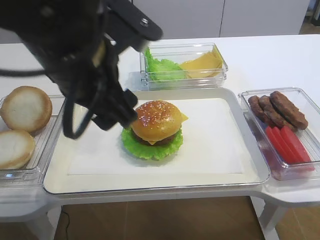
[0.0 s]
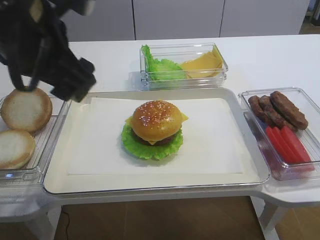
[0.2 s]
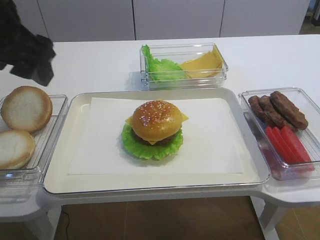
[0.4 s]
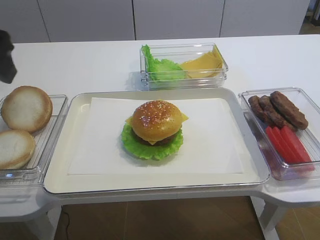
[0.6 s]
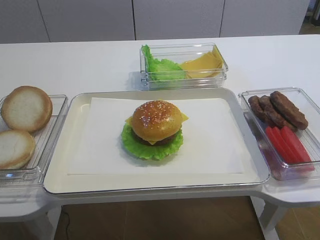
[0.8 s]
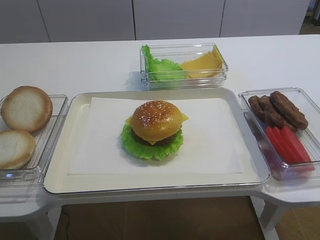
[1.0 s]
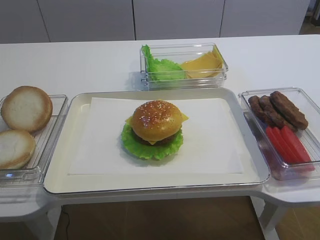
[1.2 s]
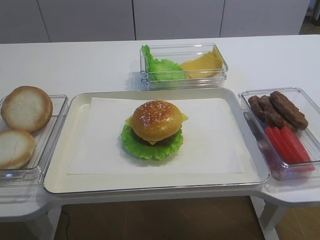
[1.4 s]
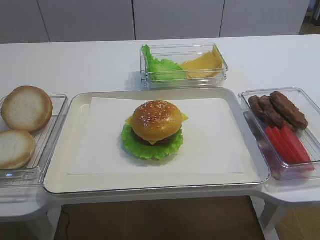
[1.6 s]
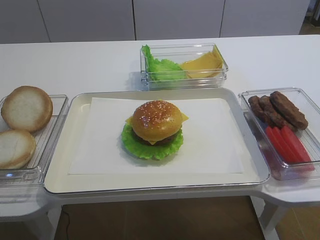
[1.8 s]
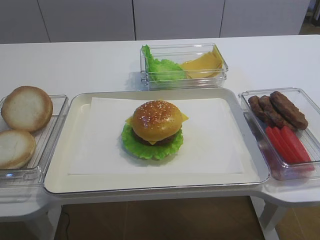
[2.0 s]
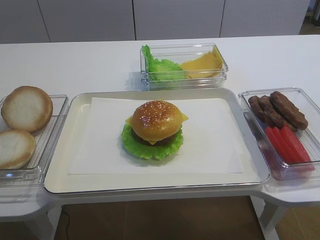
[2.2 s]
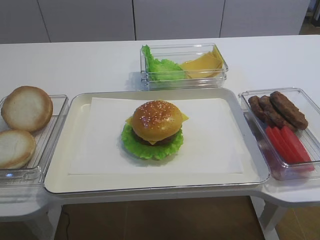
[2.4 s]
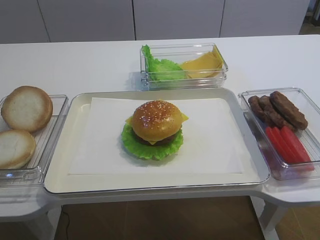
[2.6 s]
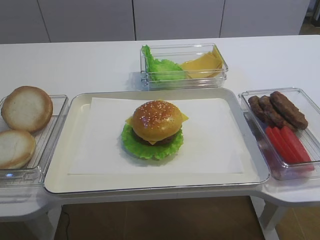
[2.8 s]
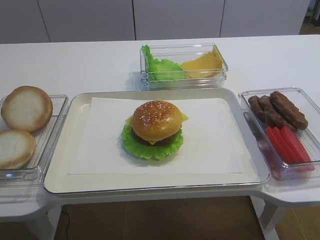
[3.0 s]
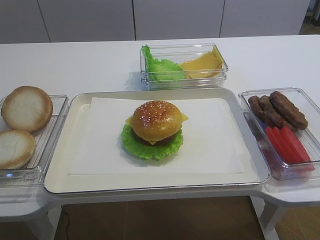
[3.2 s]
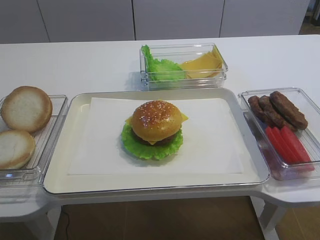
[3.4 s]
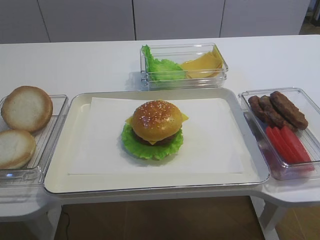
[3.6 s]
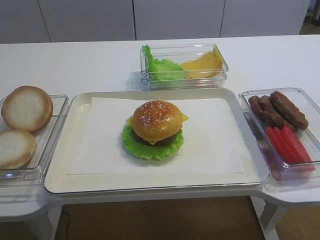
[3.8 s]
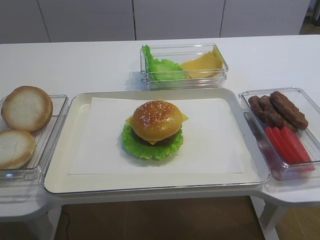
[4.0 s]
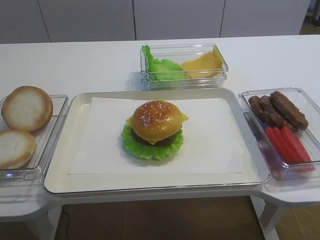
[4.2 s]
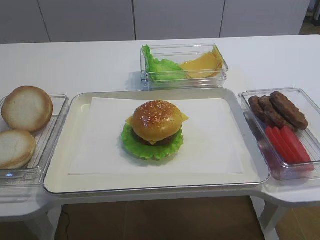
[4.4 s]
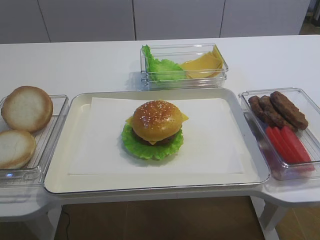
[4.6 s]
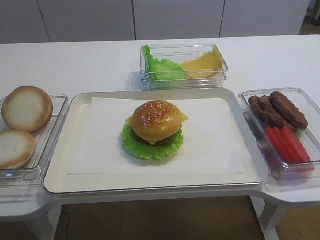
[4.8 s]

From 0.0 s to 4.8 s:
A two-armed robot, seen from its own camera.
From 0.0 s to 1.6 s: The left gripper moves to the left and backward, approximately 30 cm.

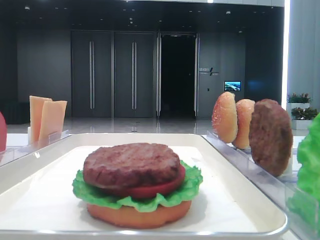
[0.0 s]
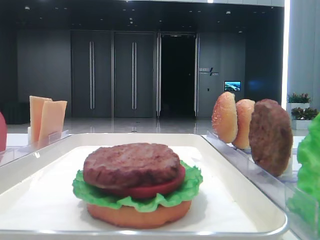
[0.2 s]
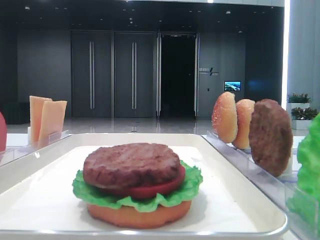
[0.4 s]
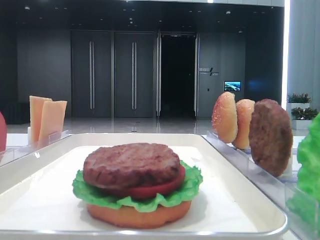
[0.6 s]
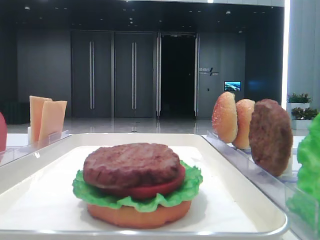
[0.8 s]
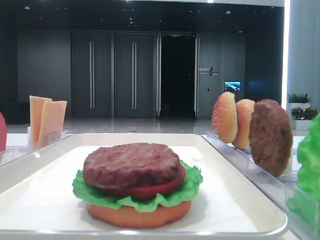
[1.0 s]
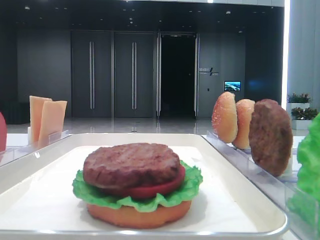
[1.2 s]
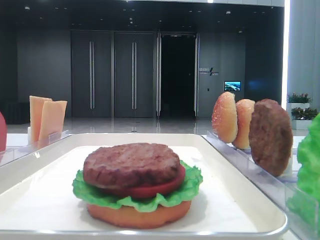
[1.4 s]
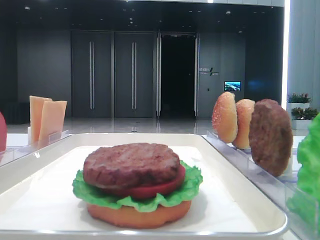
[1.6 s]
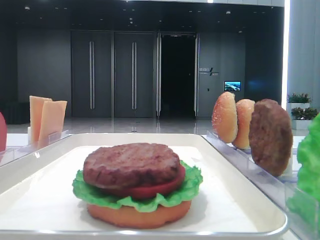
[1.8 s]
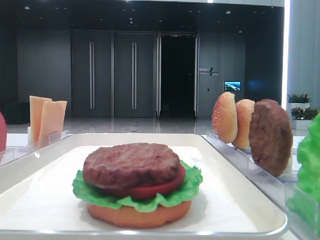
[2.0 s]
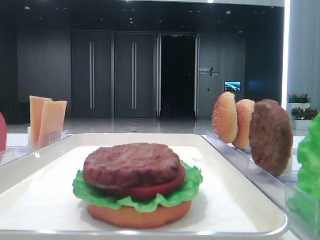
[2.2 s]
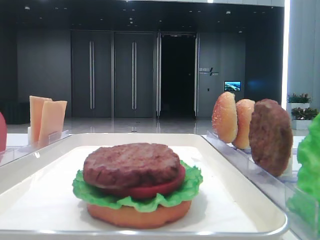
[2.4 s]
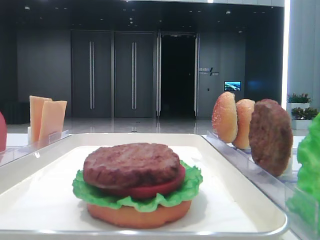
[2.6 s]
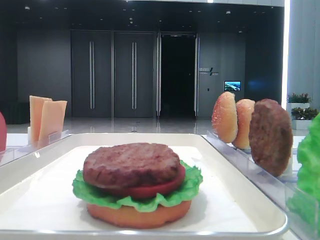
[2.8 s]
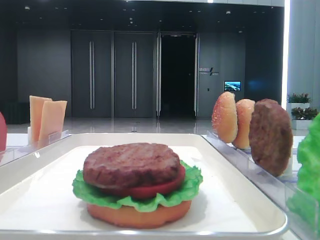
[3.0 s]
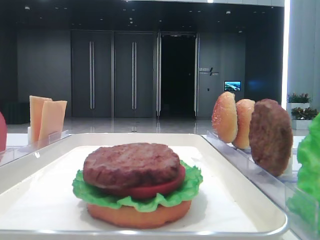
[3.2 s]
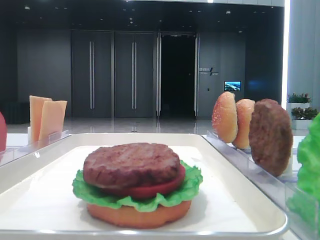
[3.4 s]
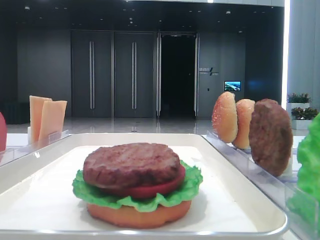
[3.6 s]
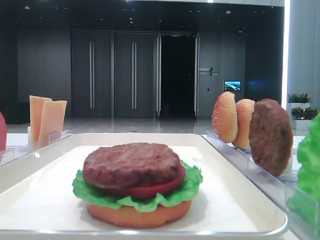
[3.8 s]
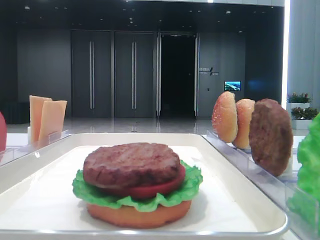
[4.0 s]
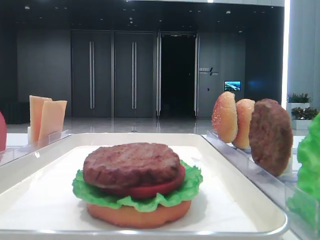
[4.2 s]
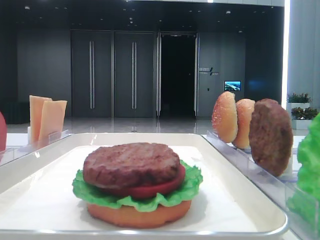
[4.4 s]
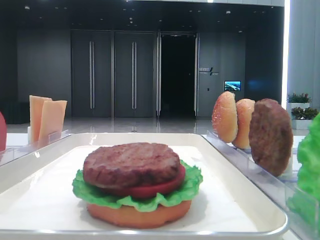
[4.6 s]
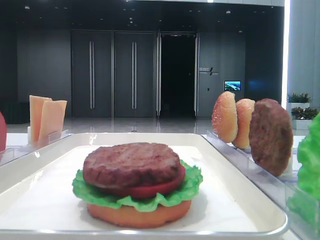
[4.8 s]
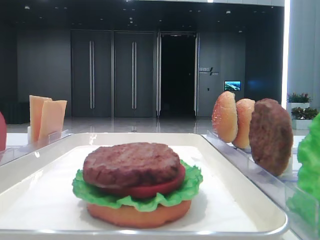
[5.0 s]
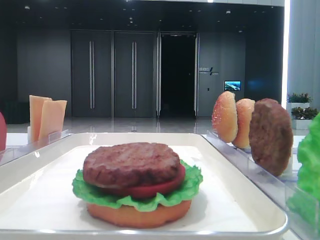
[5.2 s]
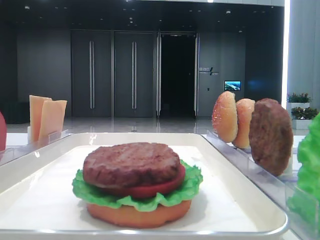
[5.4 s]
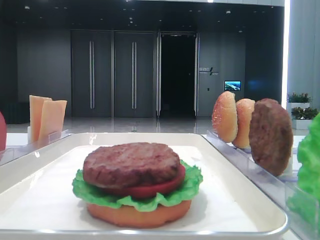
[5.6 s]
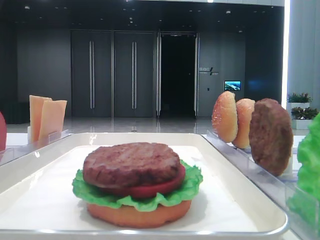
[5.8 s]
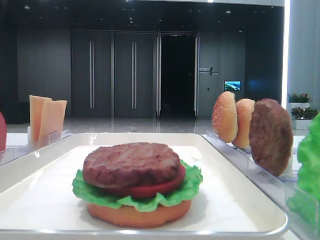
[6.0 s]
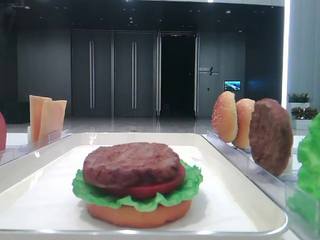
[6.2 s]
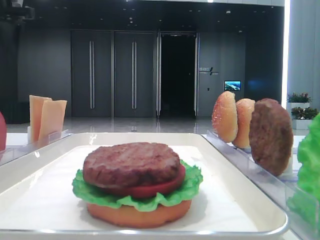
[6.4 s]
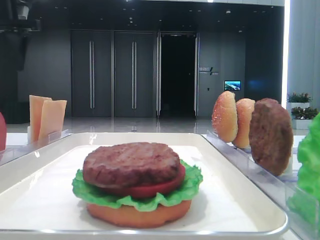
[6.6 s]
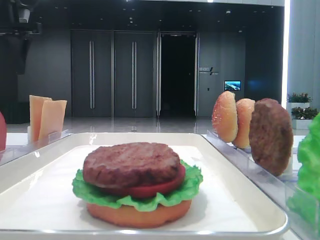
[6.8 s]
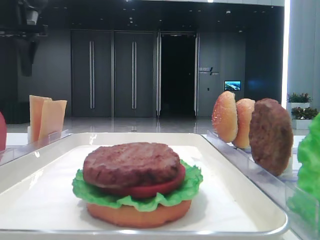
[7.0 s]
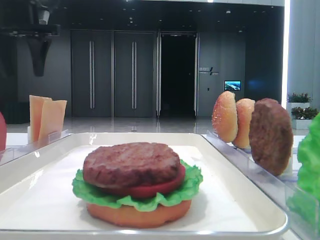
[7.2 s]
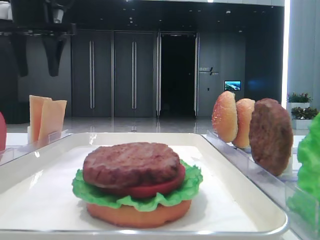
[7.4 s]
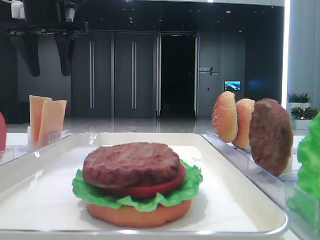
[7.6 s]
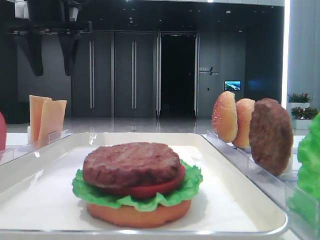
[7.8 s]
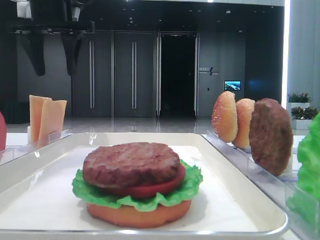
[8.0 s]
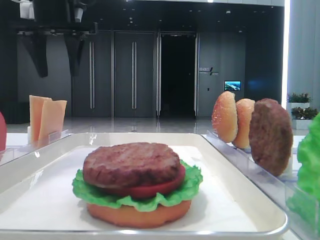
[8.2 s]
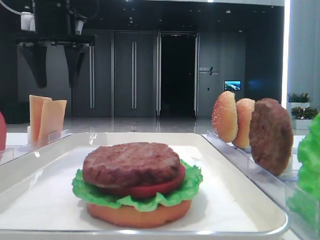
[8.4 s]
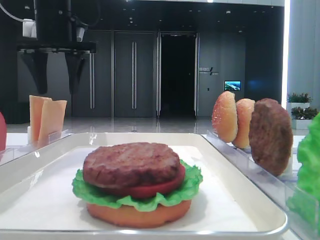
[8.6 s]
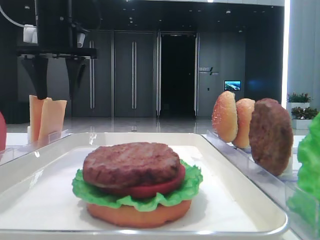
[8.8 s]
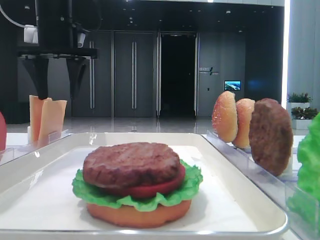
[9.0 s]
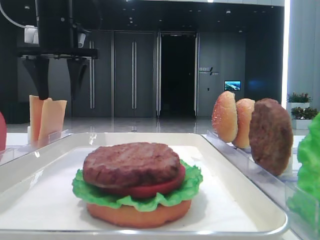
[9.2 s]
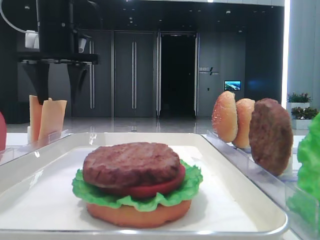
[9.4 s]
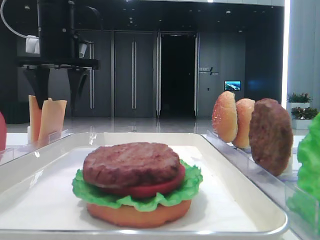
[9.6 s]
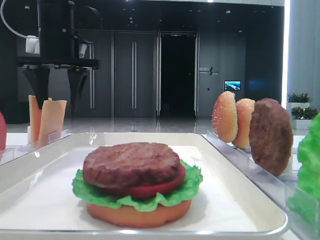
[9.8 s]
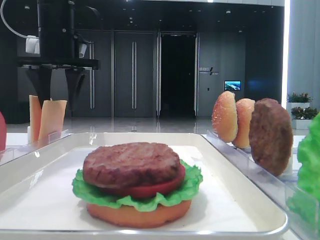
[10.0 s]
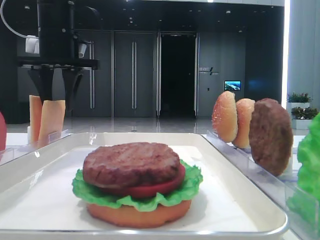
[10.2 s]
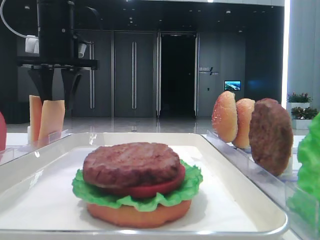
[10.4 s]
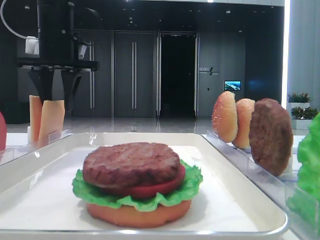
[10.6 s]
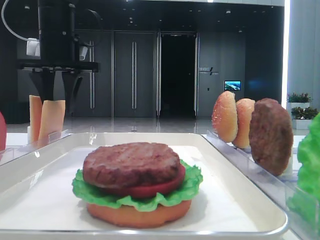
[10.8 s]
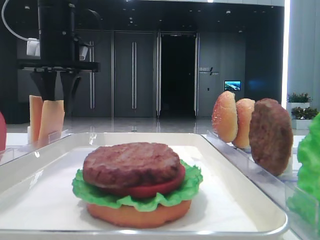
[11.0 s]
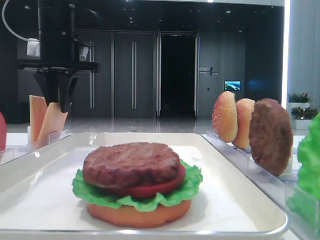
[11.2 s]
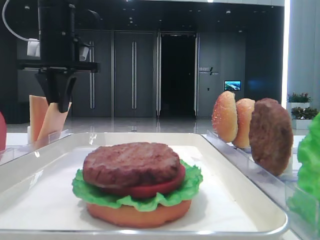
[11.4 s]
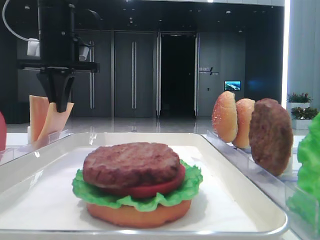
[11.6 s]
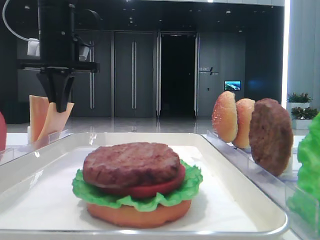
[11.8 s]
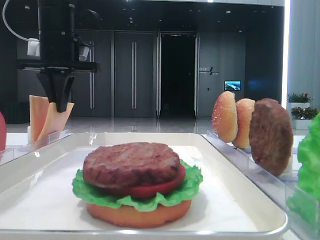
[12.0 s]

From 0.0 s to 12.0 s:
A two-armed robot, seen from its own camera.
From 6.0 s to 7.6 s: The left gripper moves to the right and forward, about 10 cm.
From 7.6 s to 9.0 s: The grippers move only a little.
From 9.0 s to 10.4 s: There are only small adjustments of the grippers.
From 10.4 s to 12.0 s: The left gripper closes.

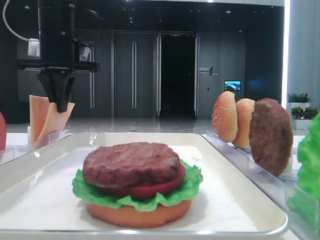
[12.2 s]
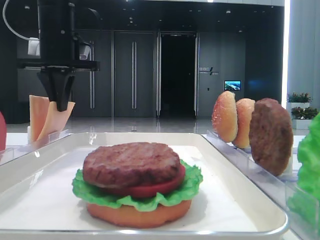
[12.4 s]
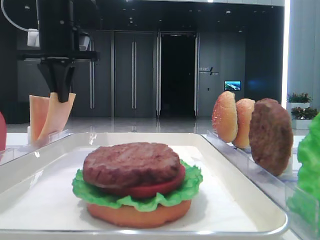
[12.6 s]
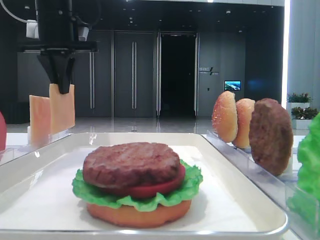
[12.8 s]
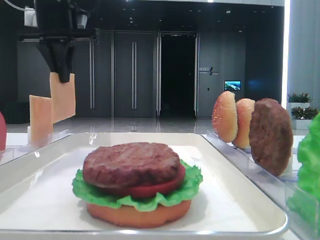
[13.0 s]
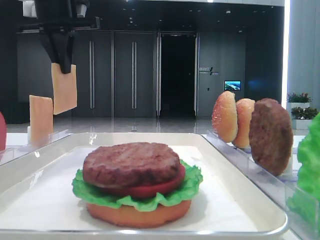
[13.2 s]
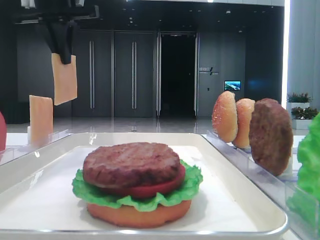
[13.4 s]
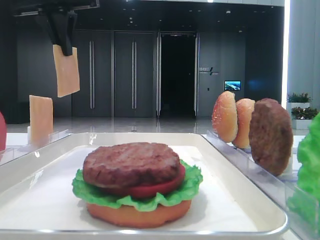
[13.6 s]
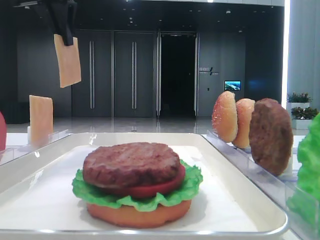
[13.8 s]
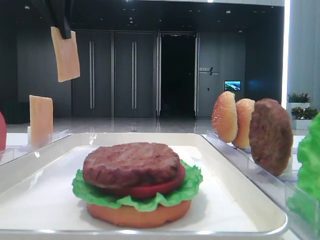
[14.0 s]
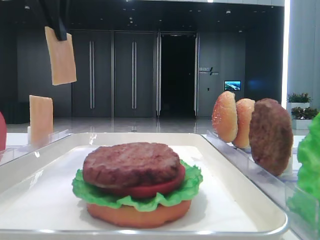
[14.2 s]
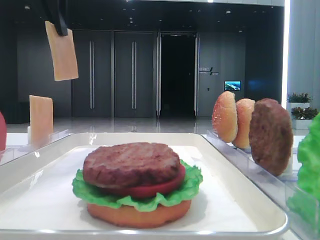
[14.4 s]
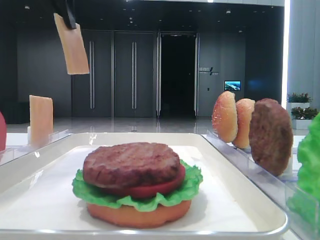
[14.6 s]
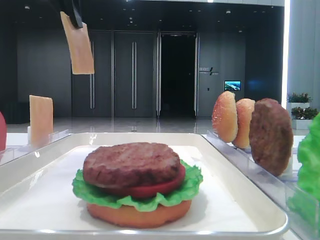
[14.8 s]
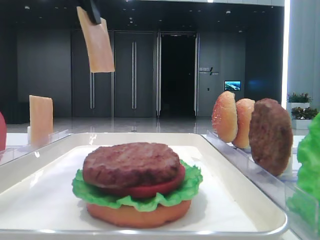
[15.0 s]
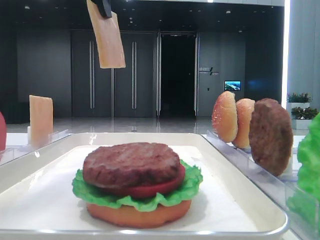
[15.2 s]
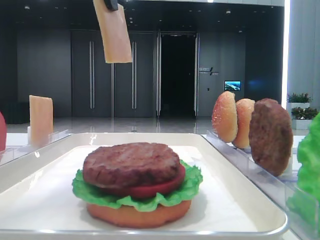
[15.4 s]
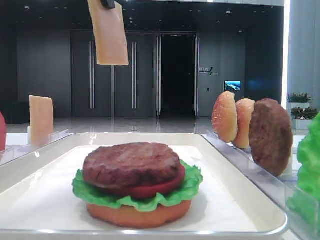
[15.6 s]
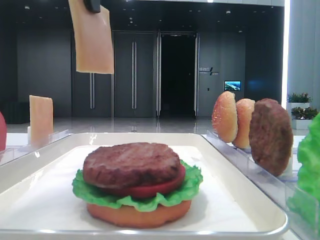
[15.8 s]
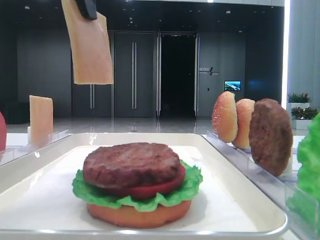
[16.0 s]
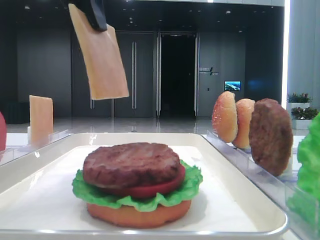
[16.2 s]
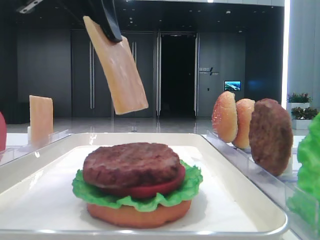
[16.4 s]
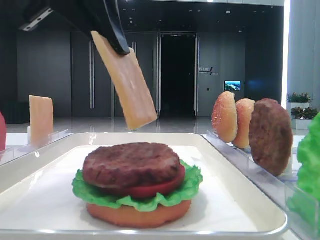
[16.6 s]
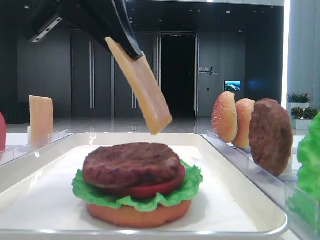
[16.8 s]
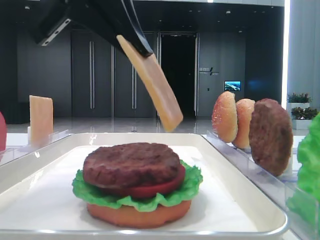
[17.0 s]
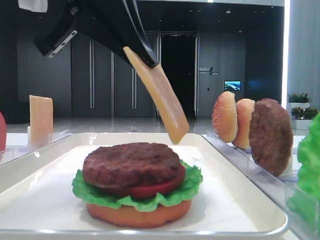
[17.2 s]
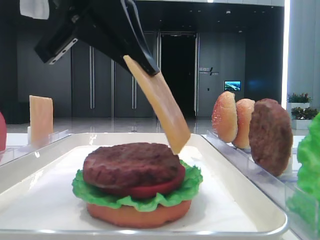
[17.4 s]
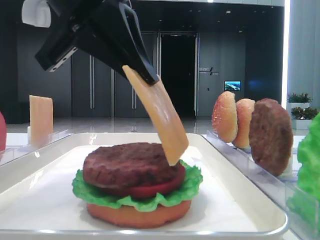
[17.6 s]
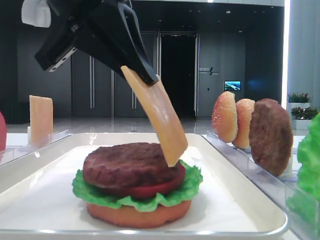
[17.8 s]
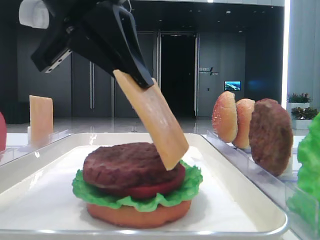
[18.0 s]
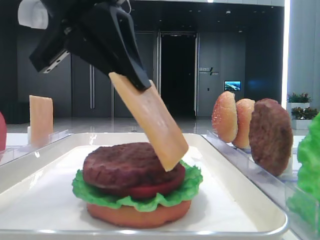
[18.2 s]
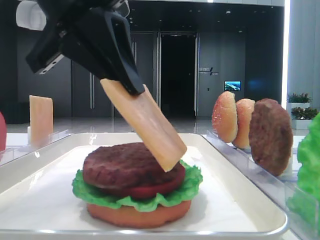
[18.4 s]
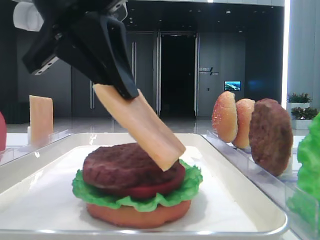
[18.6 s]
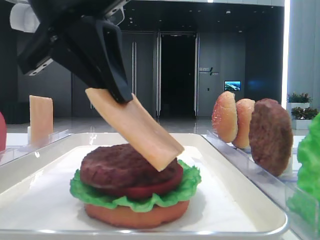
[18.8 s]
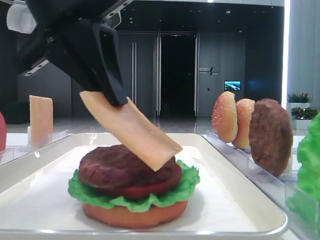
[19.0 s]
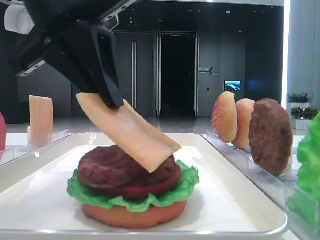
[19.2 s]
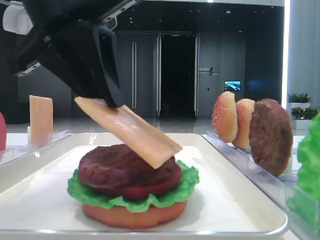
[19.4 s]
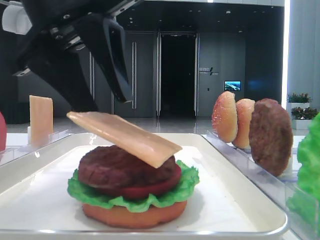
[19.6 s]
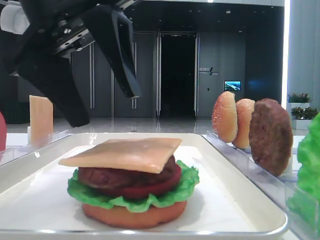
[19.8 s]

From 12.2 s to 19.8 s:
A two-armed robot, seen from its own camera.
Step, from 12.4 s to 19.6 s: Place the cheese slice on the patty with the left hand.
From 12.2 s to 13.8 s: The left gripper shifts roughly 10 cm upward.
From 13.8 s to 15.2 s: The left gripper is displaced backward and to the right by roughly 10 cm.
From 15.2 s to 16.8 s: The left gripper shifts some 15 cm downward and backward.
From 16.8 s to 18.2 s: There are only small adjustments of the grippers.
From 18.2 s to 19.8 s: The left gripper opens its fingers.
